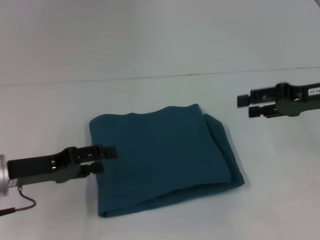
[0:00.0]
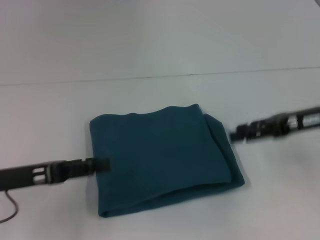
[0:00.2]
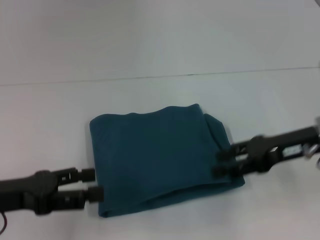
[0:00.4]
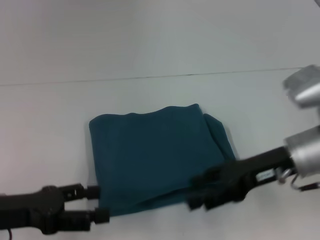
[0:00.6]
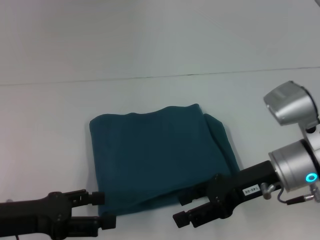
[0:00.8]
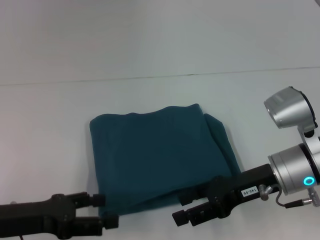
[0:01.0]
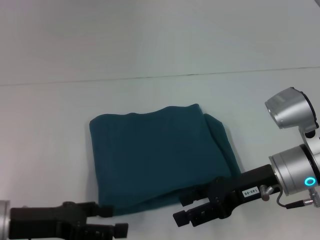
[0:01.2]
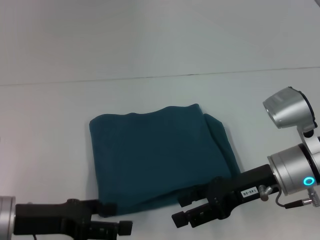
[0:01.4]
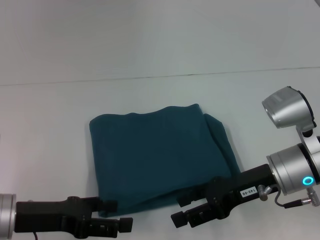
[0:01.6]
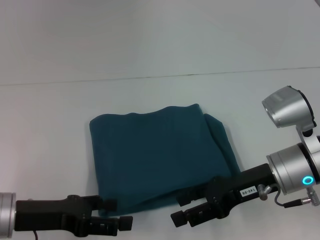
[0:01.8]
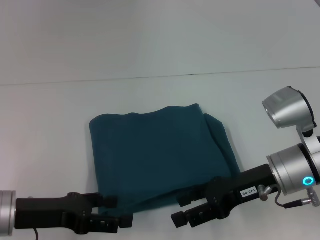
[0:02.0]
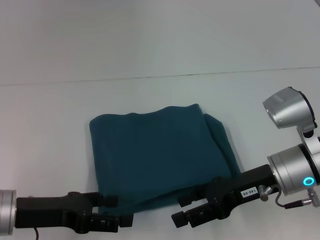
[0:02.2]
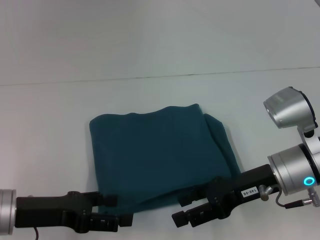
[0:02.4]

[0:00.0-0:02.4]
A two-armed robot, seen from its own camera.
0:00.0 to 0:01.2: The right gripper travels to the left, downward and backward by about 15 cm.
0:01.2 to 0:02.4: There are only small adjustments of the grippers.

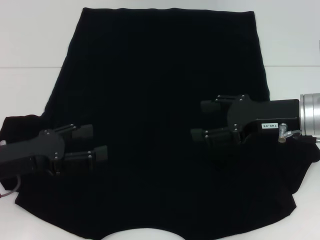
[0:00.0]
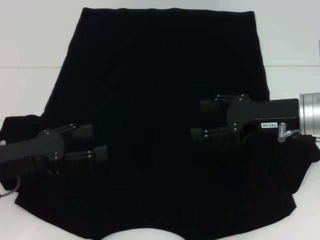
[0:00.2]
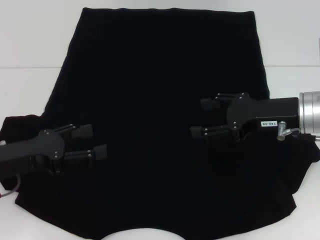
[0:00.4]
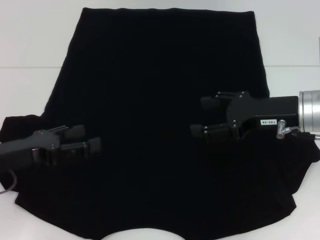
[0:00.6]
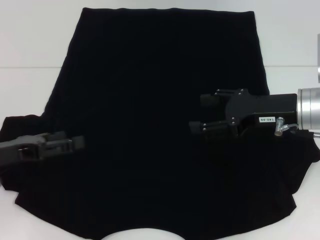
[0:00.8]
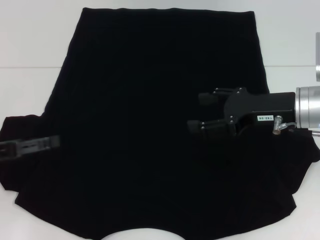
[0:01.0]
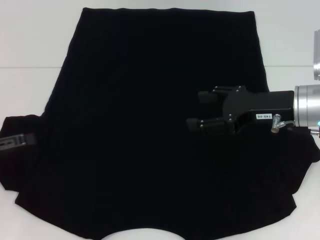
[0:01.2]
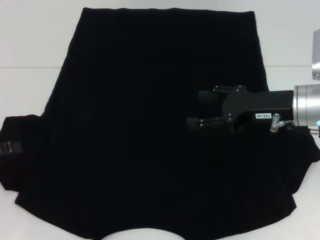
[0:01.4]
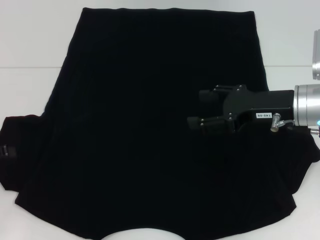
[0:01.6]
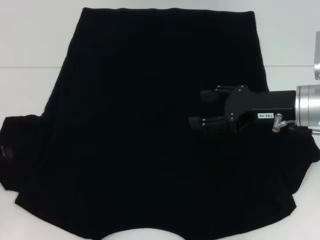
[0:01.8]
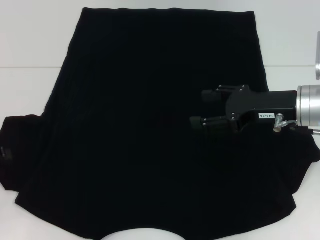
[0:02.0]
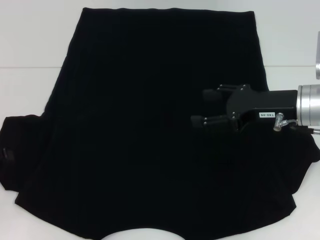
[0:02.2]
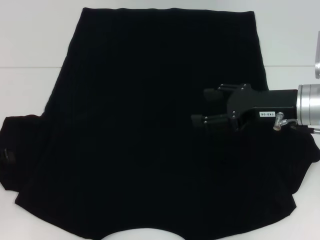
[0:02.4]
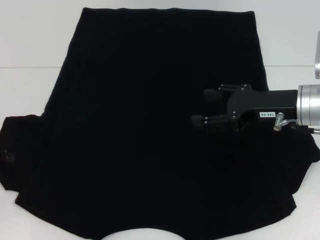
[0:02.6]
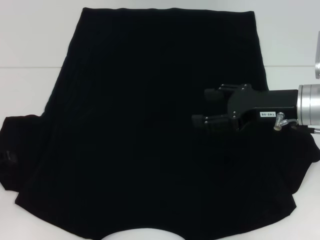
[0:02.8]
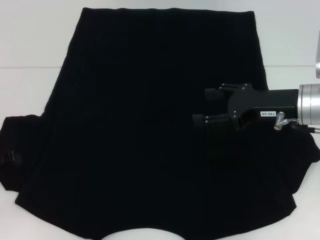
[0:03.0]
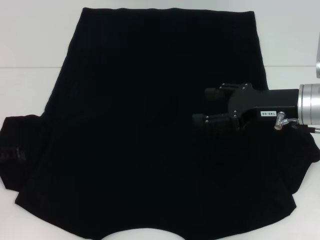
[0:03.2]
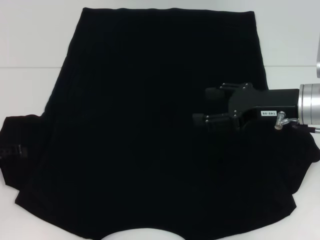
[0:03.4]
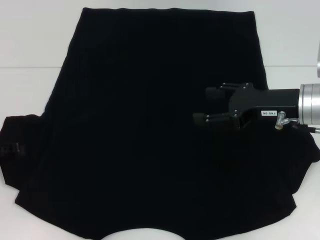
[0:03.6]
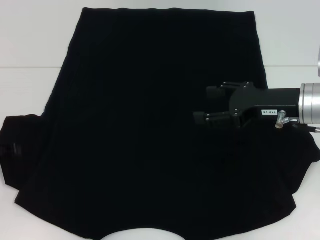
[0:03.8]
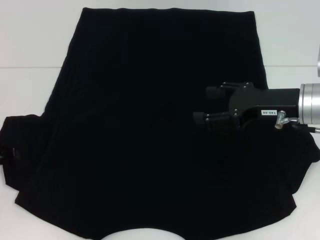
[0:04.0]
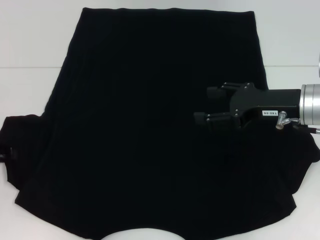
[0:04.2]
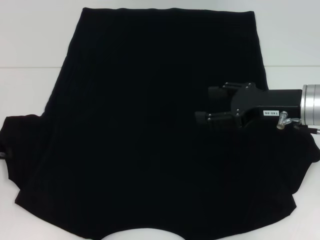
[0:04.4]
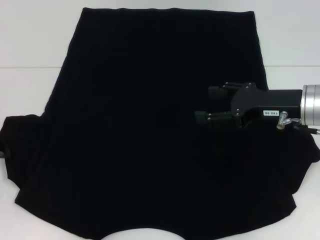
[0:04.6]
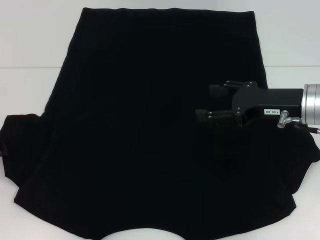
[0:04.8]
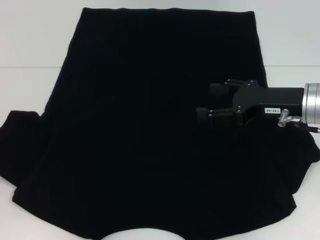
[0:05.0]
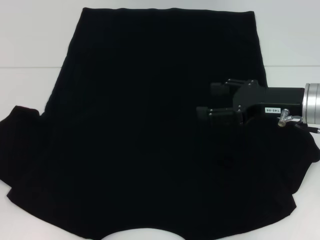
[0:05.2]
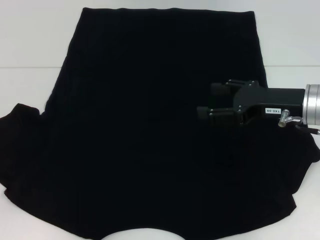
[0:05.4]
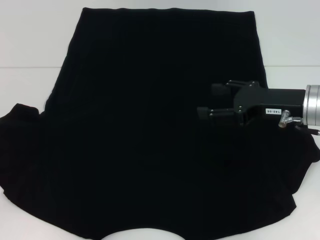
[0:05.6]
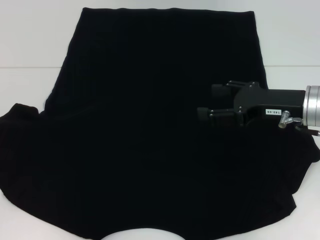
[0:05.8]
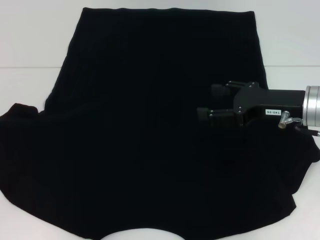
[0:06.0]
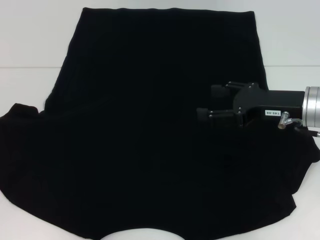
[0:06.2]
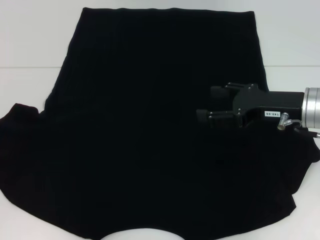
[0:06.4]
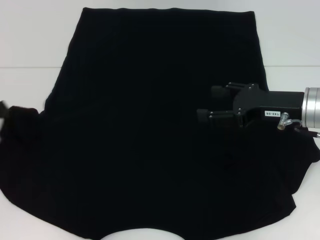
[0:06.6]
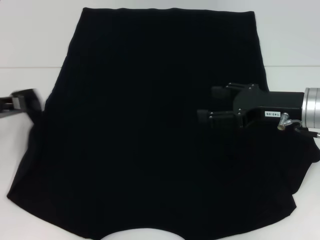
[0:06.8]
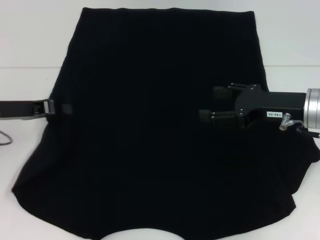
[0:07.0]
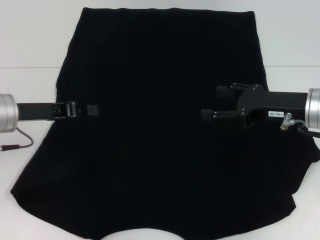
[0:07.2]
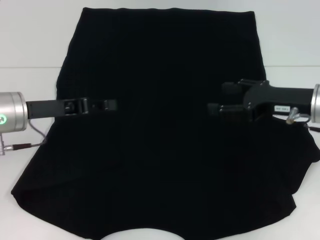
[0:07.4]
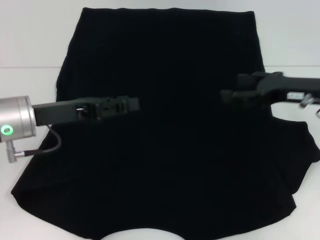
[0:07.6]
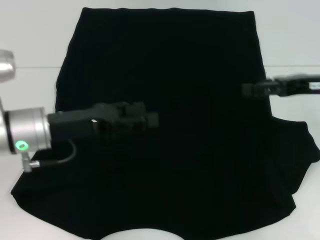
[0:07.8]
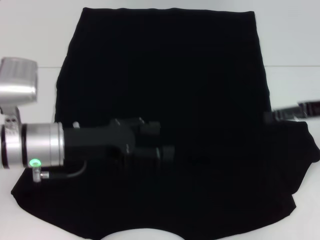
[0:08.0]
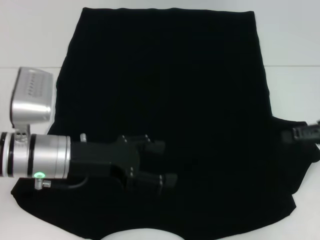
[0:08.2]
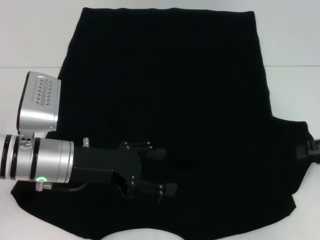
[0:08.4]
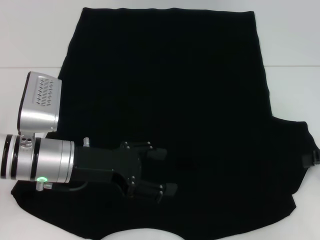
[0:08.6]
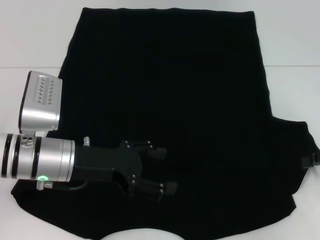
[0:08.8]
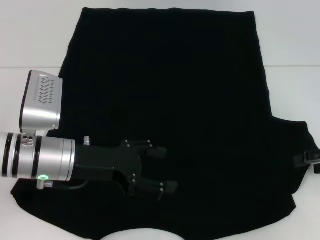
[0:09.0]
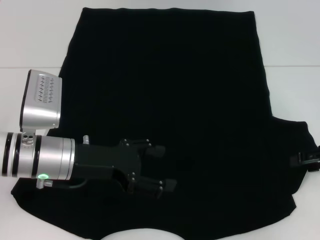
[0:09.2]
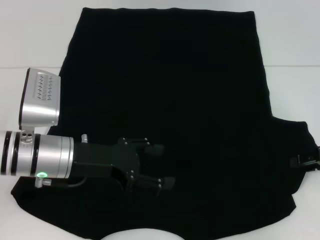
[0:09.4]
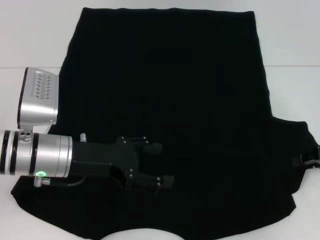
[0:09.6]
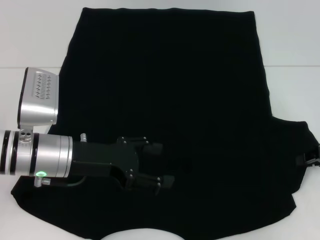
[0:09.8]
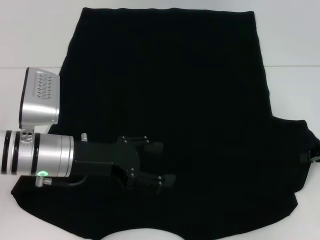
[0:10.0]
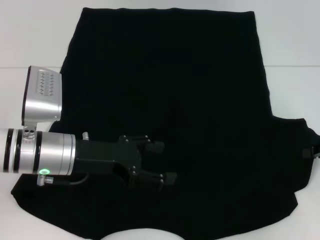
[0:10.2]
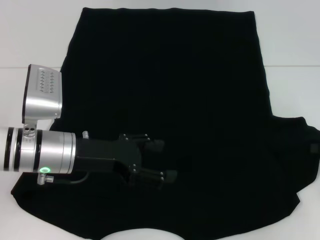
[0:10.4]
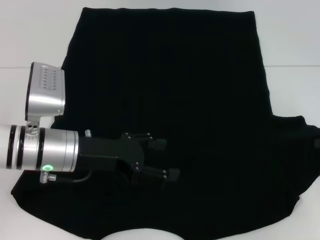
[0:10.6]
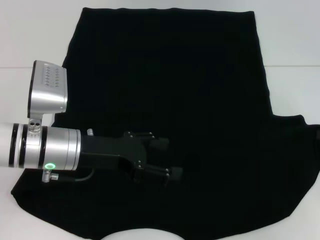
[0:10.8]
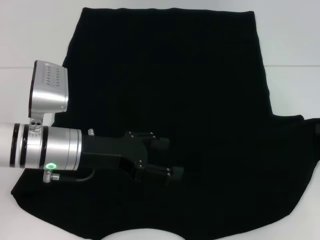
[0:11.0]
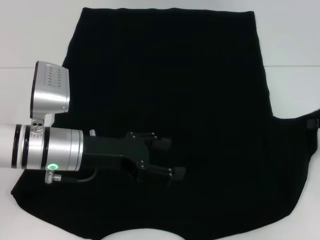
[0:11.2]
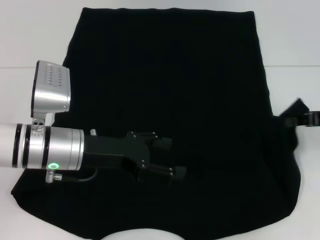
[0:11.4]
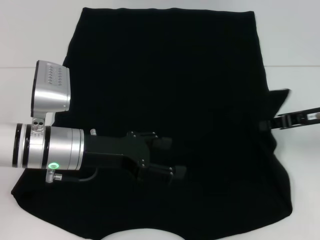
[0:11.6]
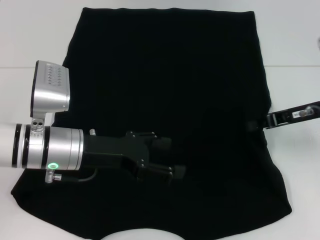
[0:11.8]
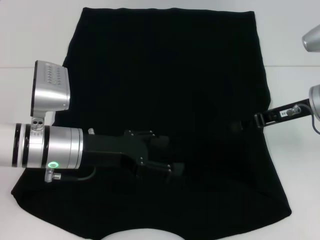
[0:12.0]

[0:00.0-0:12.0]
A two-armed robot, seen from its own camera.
Step, 0:00.0 to 0:07.2: Fold the bottom left sleeve with your left hand.
0:00.0 to 0:01.6: The left gripper travels to the left by some 10 cm.
0:01.6 to 0:03.0: There are only small adjustments of the grippers.
0:04.4 to 0:06.0: The grippers stay close to where they were, moving slightly.
0:06.0 to 0:07.6: The left gripper moves to the right, approximately 15 cm.
0:07.6 to 0:09.0: The right gripper goes approximately 10 cm to the right. The left gripper travels to the right by about 5 cm, and opens its fingers.
0:09.0 to 0:10.4: The right gripper closes up.
0:10.4 to 0:12.0: The right gripper heads to the left and forward, covering approximately 15 cm.

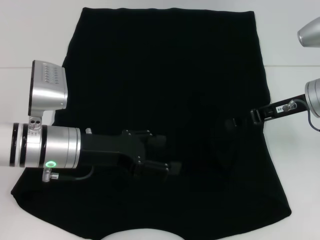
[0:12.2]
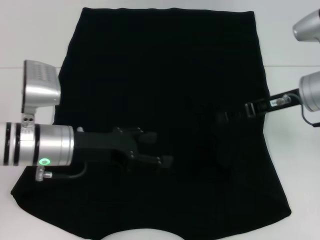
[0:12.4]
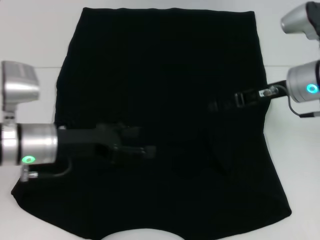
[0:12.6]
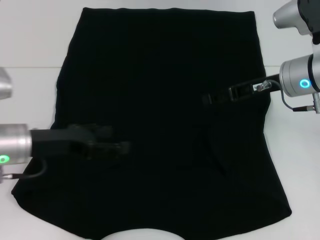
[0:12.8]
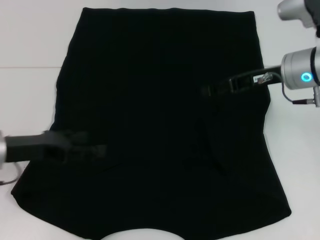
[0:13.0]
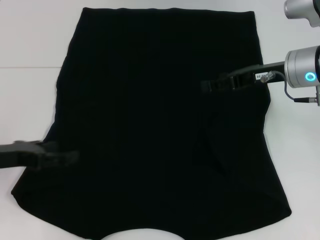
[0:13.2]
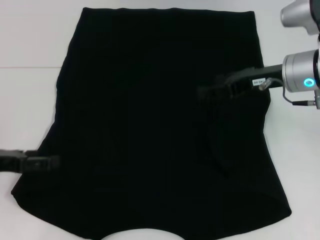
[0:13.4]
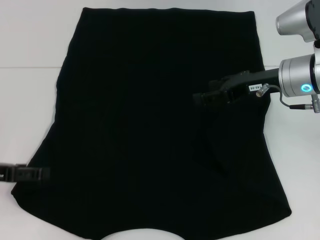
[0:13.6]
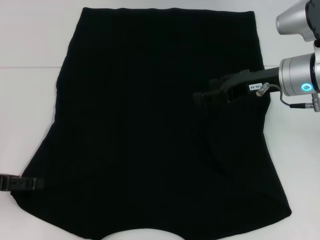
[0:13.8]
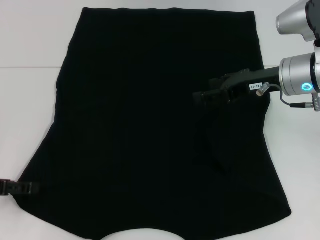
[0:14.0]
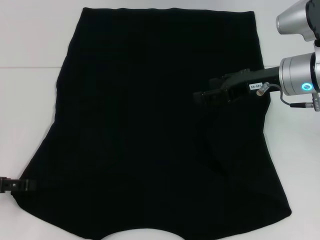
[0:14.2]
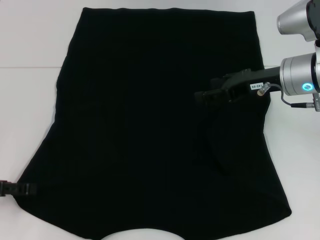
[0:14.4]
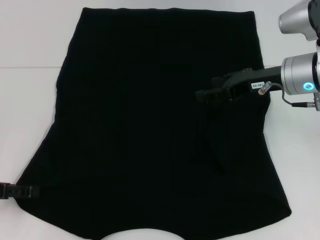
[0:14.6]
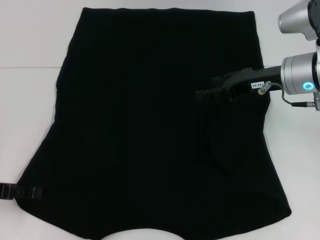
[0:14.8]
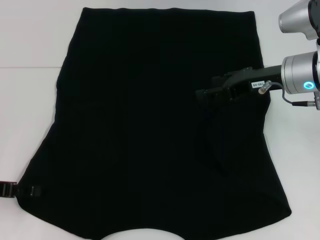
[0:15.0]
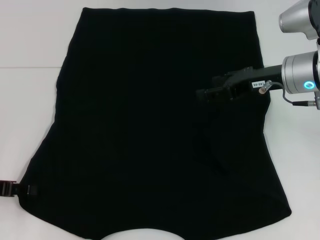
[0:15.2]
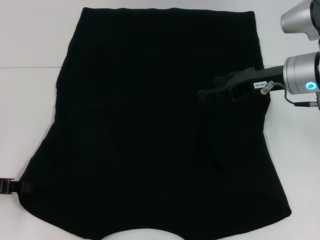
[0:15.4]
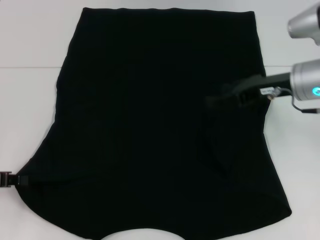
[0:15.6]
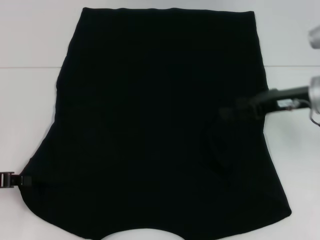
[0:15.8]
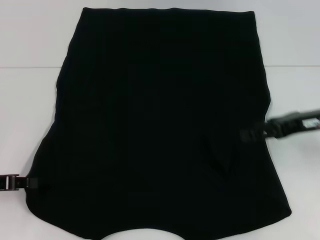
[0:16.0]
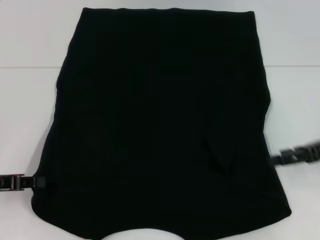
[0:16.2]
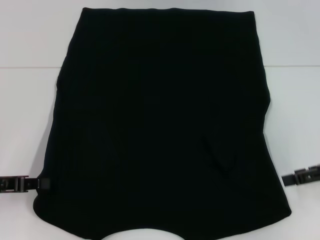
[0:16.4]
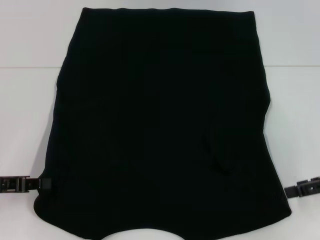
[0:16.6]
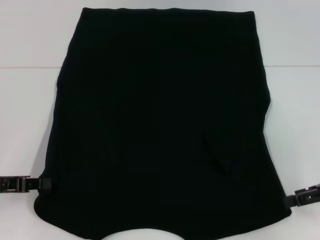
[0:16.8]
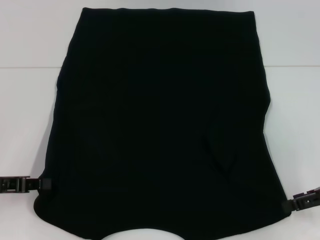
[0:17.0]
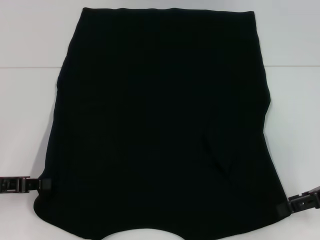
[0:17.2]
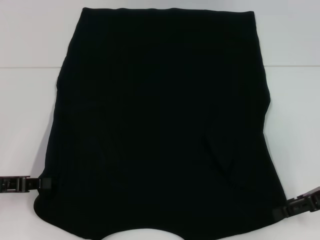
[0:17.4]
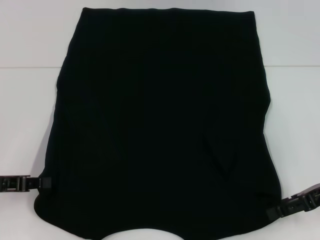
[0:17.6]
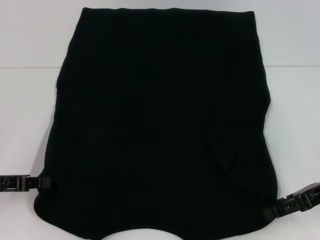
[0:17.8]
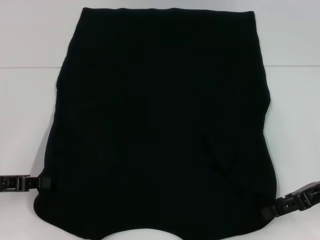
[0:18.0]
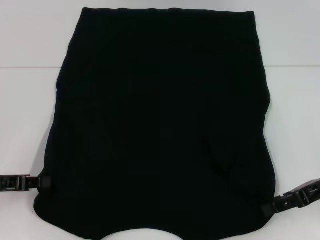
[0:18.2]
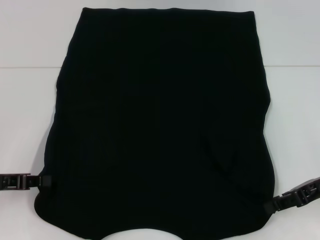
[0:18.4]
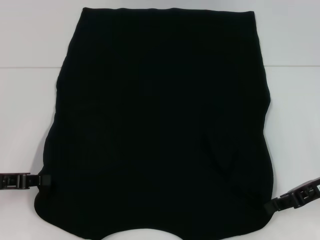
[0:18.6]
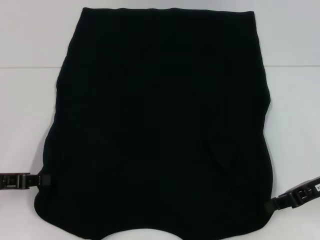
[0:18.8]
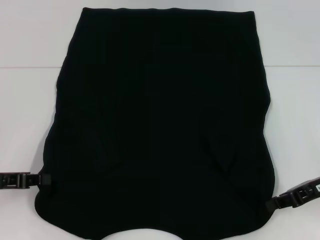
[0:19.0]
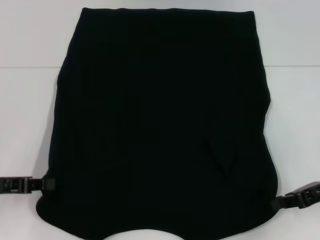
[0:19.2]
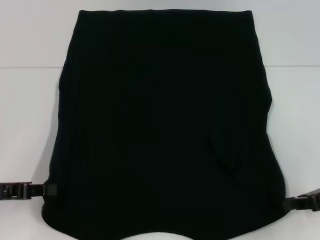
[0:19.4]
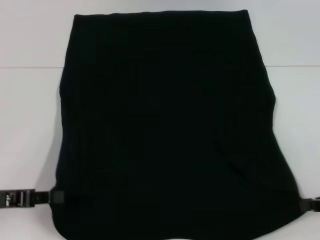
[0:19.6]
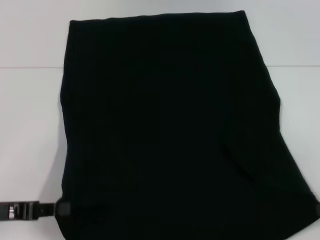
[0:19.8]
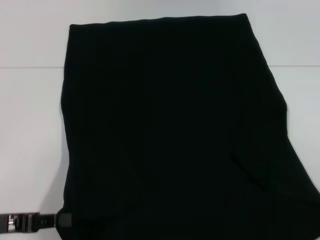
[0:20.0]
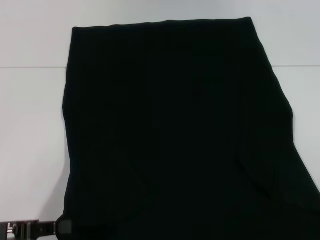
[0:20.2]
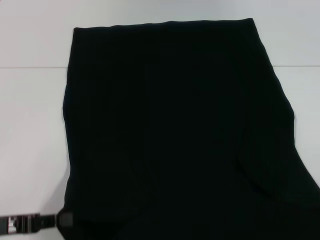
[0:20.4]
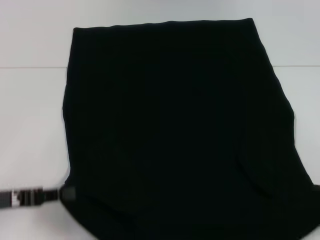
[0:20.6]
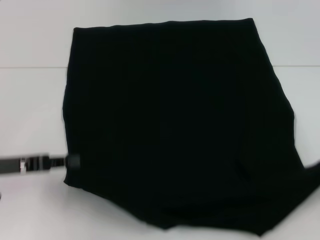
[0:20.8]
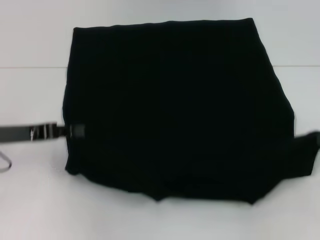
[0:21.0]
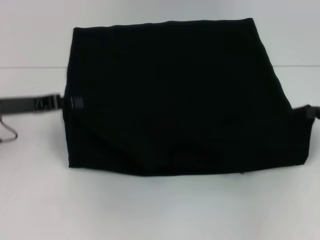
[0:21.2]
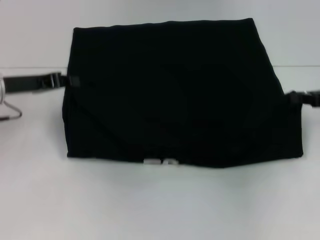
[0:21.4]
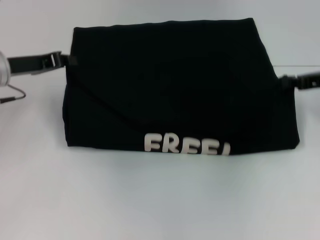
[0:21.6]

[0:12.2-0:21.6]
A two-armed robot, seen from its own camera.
Step, 0:12.4 to 0:15.8: Grab the bottom left corner with your left hand.
Step, 0:16.0 to 0:19.2: Grab the bottom right corner with your right hand.
0:12.2 to 0:13.8: The right gripper opens up. Meanwhile the left gripper goes approximately 15 cm to the left.
0:15.4 to 0:17.0: The left gripper closes its fingers, while the right gripper moves to the right, backward and downward, approximately 20 cm.
0:17.0 to 0:18.4: The grippers stay close to where they were, moving slightly.
0:18.4 to 0:20.0: The right gripper is displaced to the right and backward by some 15 cm, and closes up. The left gripper heads backward, covering some 5 cm.
0:20.0 to 0:21.6: The left gripper shifts some 20 cm forward. Meanwhile the right gripper goes some 20 cm forward and to the left.
